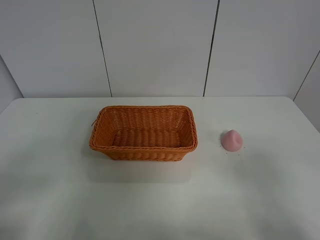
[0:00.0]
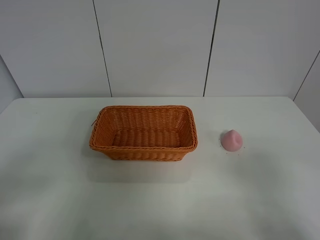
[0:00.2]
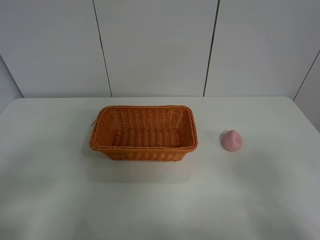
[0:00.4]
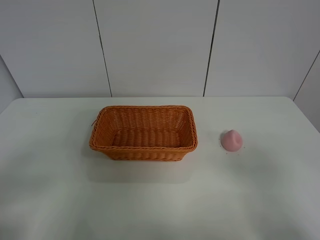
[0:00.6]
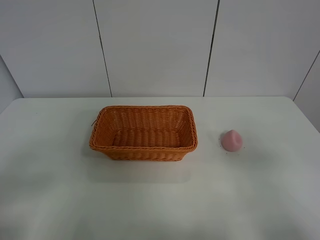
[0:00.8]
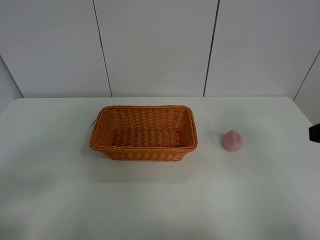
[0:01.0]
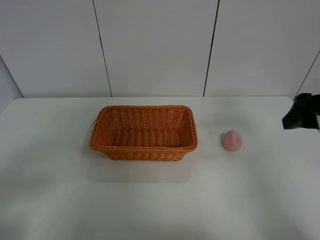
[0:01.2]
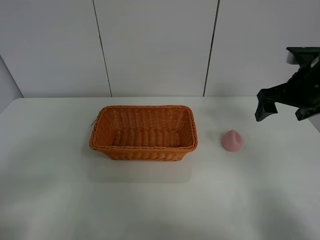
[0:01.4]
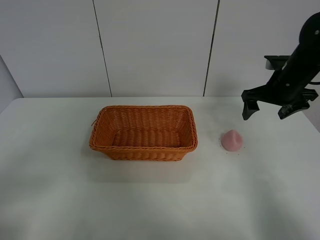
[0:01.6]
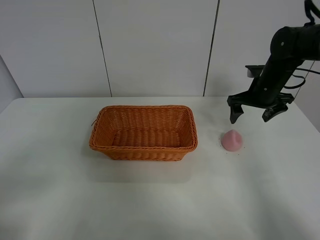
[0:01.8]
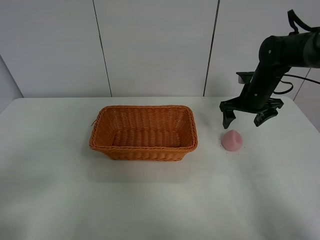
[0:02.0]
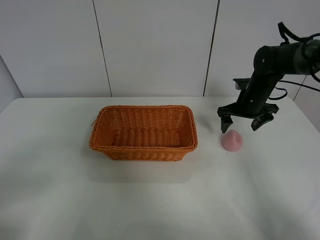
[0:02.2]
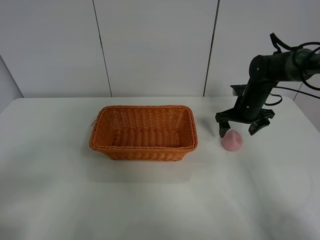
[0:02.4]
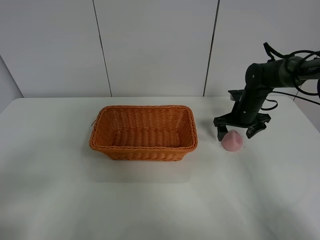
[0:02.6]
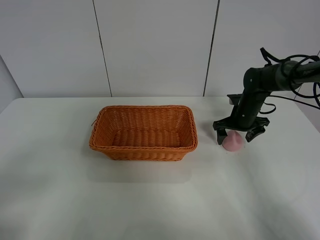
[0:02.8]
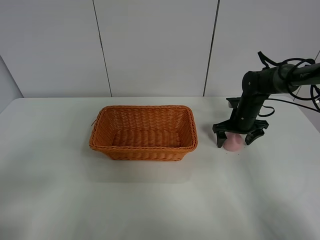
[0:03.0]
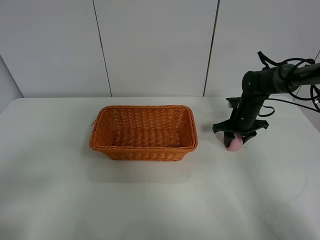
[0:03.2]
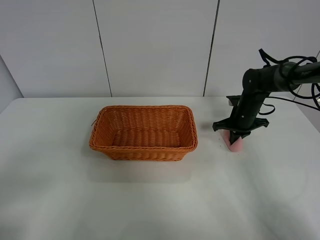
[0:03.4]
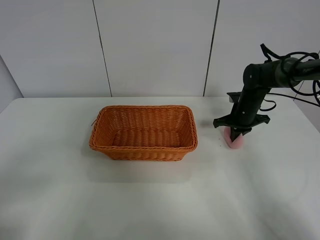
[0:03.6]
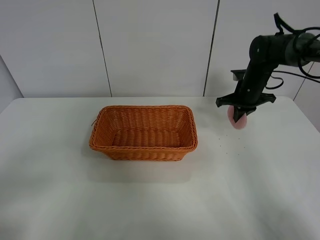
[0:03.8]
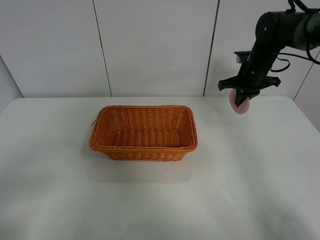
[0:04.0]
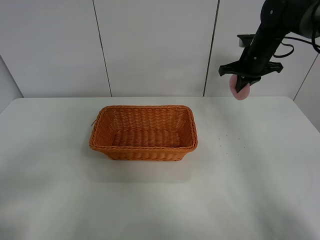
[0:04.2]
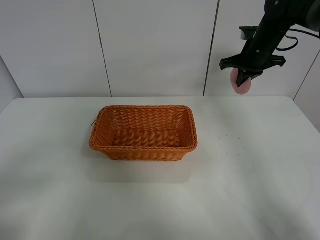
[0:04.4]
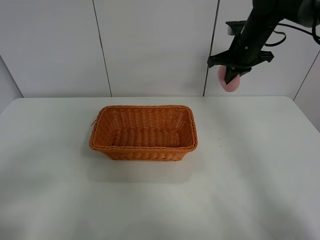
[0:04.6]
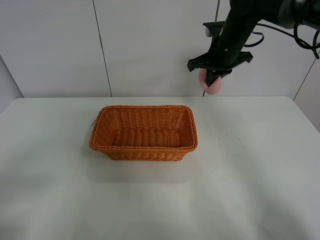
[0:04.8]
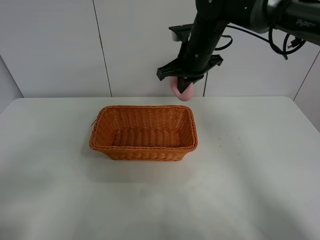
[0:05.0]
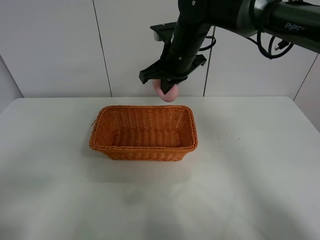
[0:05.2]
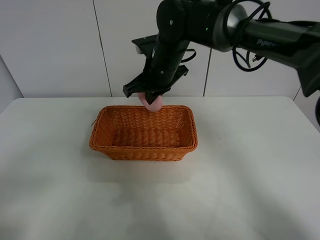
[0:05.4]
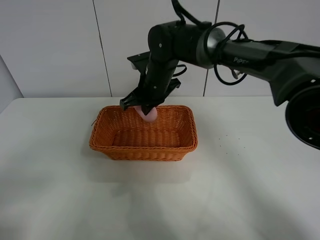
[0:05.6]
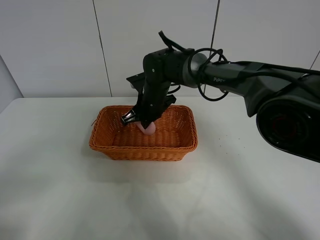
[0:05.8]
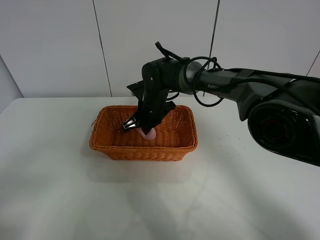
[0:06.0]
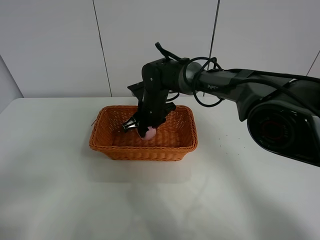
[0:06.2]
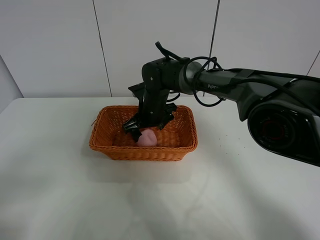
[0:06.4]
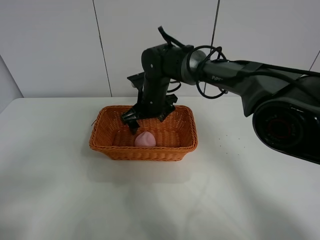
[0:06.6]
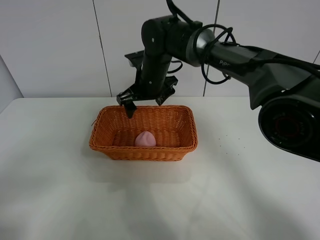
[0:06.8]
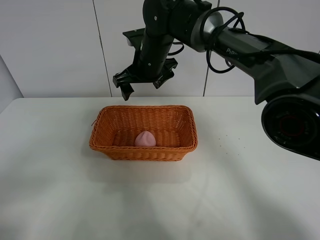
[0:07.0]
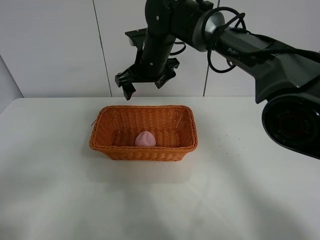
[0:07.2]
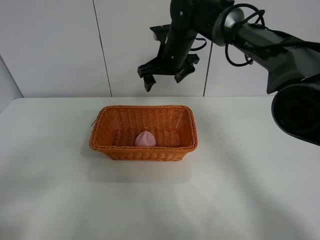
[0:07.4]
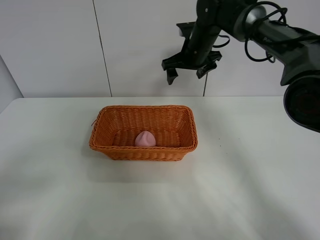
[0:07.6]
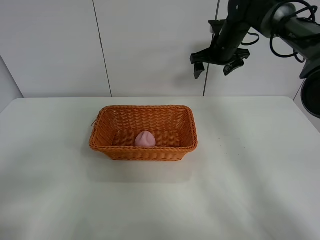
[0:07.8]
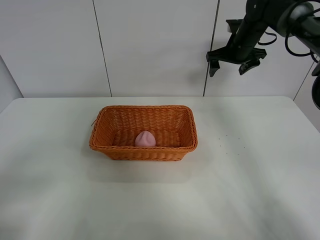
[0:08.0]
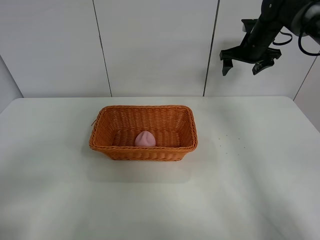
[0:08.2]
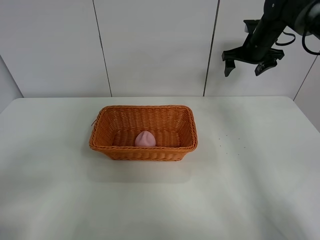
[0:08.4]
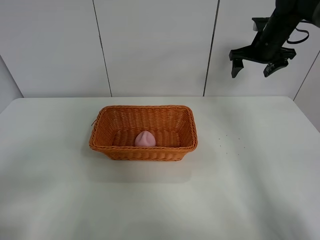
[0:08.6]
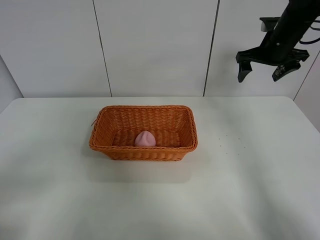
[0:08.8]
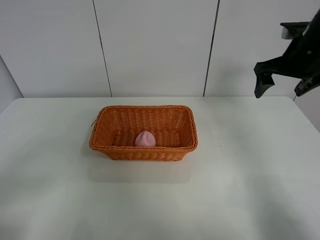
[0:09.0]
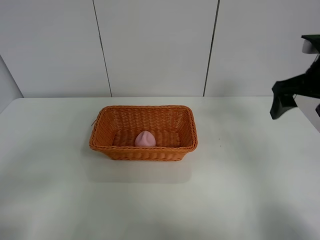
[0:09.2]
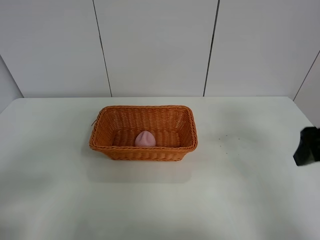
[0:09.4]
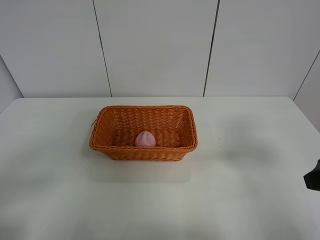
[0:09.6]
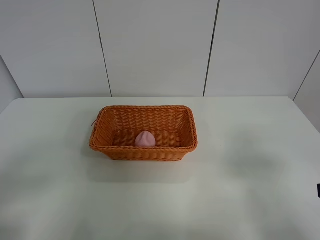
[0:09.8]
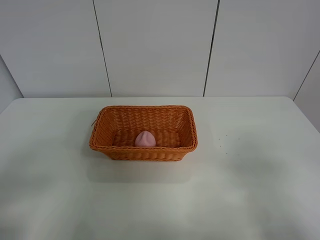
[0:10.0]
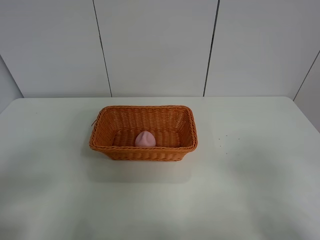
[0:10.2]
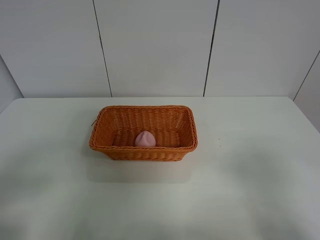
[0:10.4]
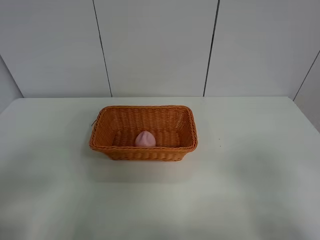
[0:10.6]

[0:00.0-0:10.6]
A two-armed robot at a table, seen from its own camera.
Step, 0:00.0 to 0:03.6: Grasp the peach with right gripper.
Step, 0:03.8 to 0:07.2: Place the peach in the basket with right gripper.
0:00.0 to 0:01.6: The right gripper shifts approximately 35 cm forward.
0:01.6 to 0:03.0: The right gripper shifts roughly 15 cm downward.
0:03.0 to 0:04.6: The right gripper travels upward by some 20 cm, and closes up.
0:04.6 to 0:06.0: The right gripper goes roughly 25 cm to the left and downward.
0:06.0 to 0:07.6: The right gripper heads to the right, upward and forward, covering roughly 20 cm, and opens.
0:07.6 to 0:09.0: The right gripper heads to the right and backward, covering some 20 cm.
0:09.0 to 0:10.6: The right gripper travels backward by approximately 35 cm.

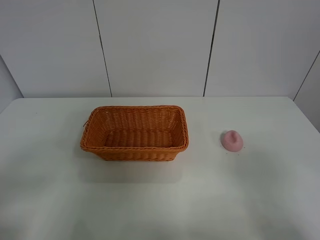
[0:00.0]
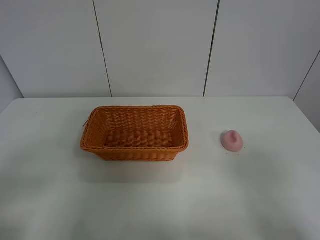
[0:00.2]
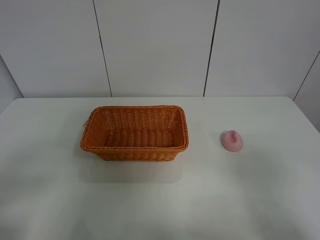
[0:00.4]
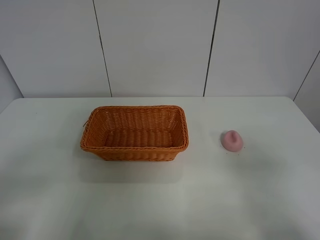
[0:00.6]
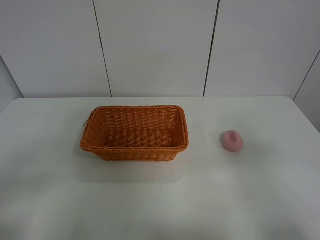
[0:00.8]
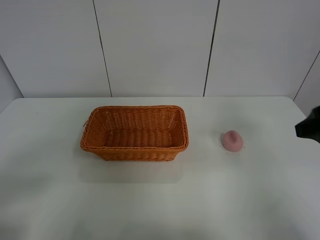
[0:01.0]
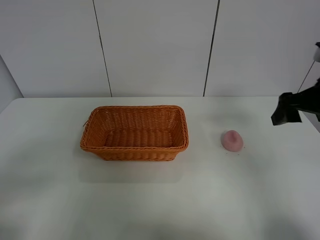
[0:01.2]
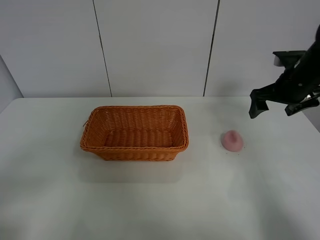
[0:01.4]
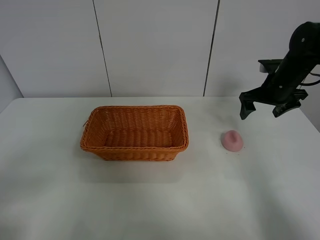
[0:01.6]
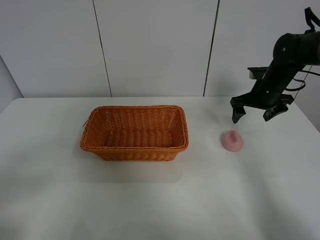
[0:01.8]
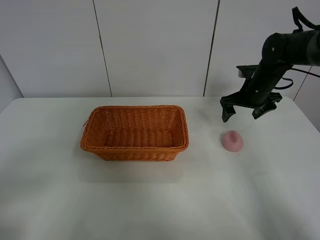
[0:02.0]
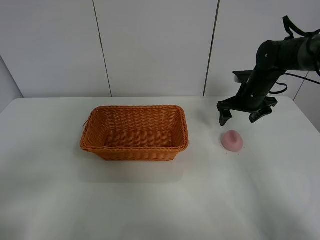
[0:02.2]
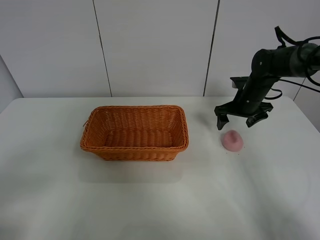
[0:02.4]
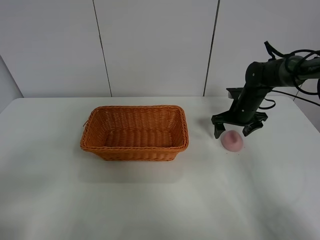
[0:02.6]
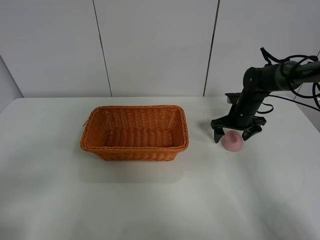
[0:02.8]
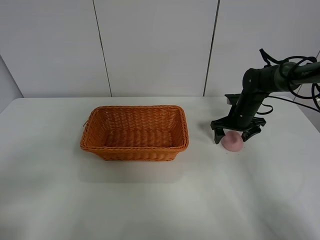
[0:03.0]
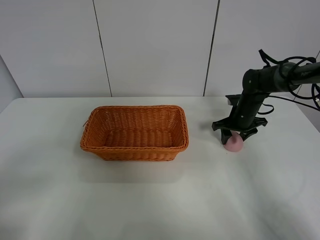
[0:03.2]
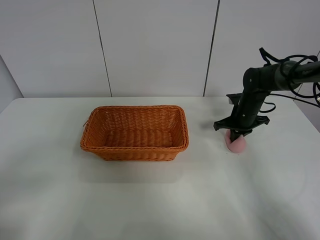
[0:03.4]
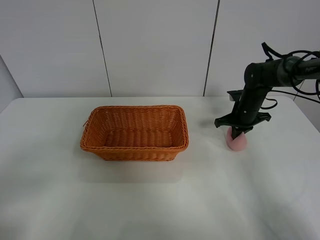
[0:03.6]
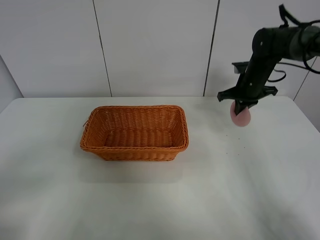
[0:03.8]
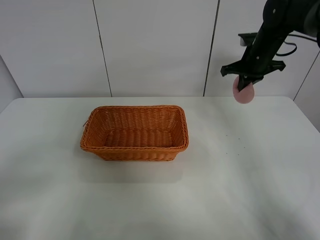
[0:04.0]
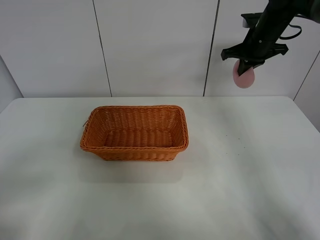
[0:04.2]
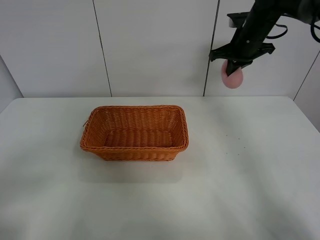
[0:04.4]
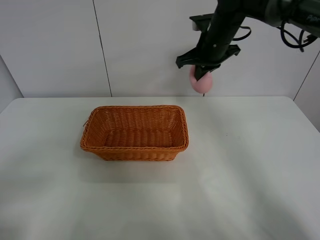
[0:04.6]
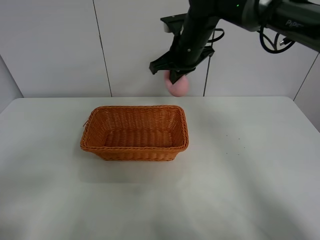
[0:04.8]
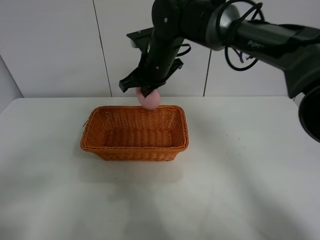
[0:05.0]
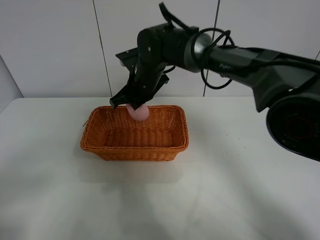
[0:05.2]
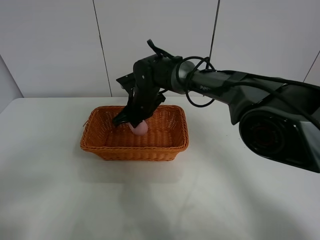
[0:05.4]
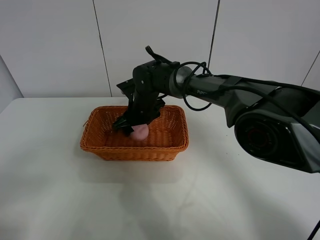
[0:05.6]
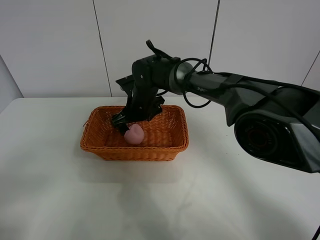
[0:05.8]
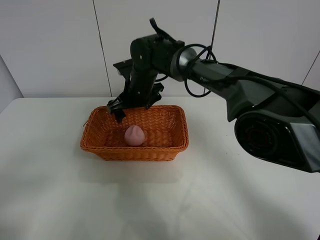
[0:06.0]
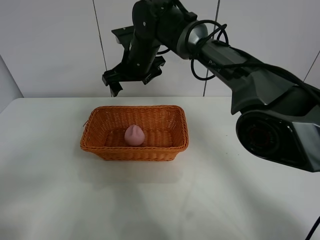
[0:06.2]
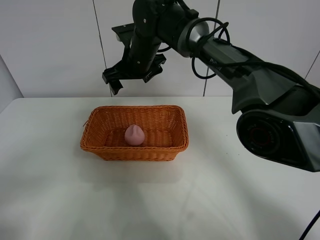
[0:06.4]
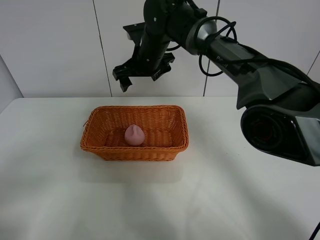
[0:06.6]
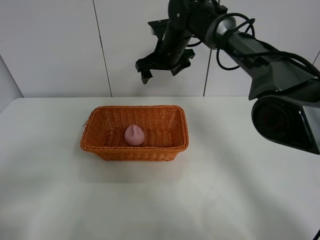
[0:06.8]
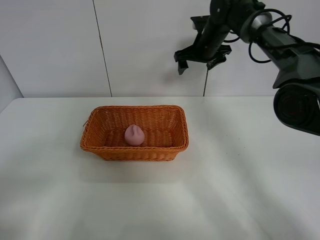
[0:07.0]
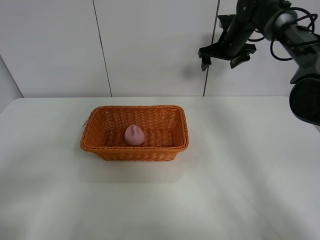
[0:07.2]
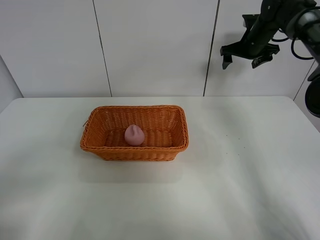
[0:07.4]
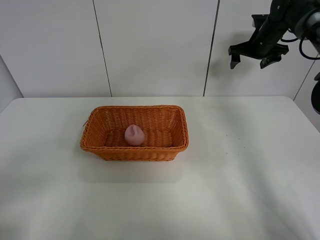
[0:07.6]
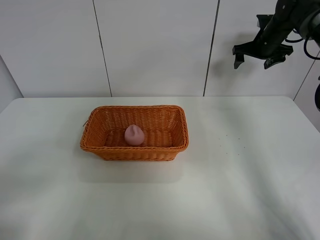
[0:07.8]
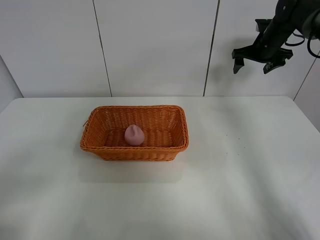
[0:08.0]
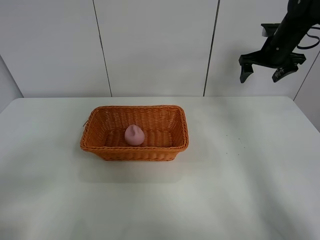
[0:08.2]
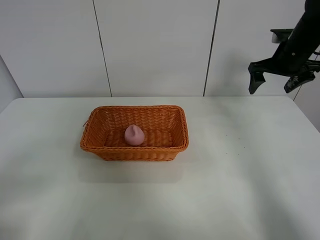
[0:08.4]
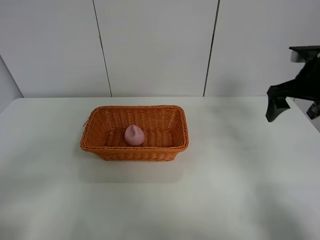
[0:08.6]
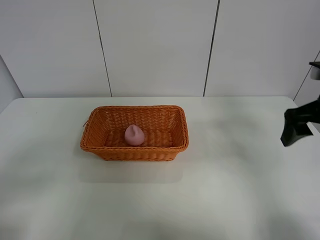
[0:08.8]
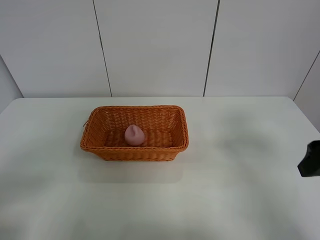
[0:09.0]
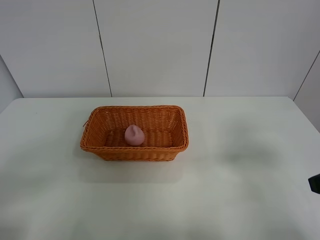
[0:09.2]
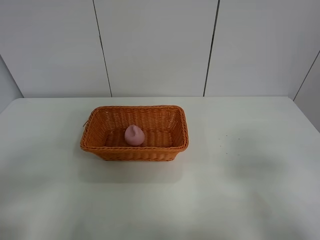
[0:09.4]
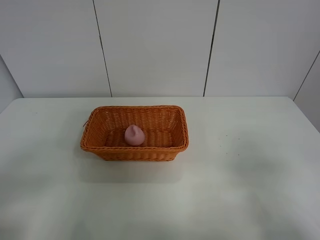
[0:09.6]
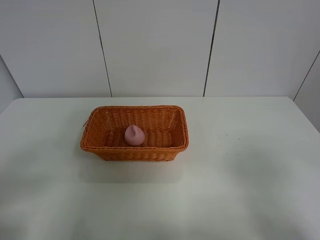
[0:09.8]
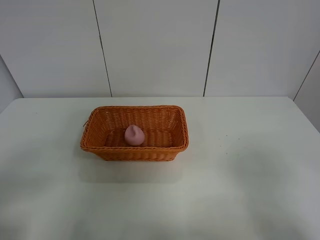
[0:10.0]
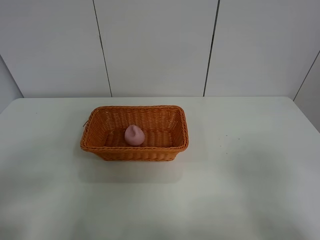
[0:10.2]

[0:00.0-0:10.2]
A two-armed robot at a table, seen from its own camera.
Step, 0:00.0 to 0:03.6: Grasp the peach with right gripper.
Step, 0:03.8 to 0:06.4: Place the peach in the basket with right gripper.
0:00.0 to 0:01.4: The right gripper is displaced forward by roughly 35 cm.
0:01.4 to 0:03.0: The right gripper is displaced downward and forward by approximately 15 cm.
0:03.0 to 0:04.4: The right gripper goes approximately 20 cm upward, and closes its fingers.
0:04.4 to 0:05.8: The right gripper goes about 25 cm to the left and downward, and opens up.
0:05.8 to 0:07.2: The right gripper is displaced to the right, forward and upward by about 30 cm.
0:07.2 to 0:08.8: The right gripper heads backward, covering some 30 cm.
0:08.8 to 0:10.2: The right gripper moves backward, some 25 cm.
